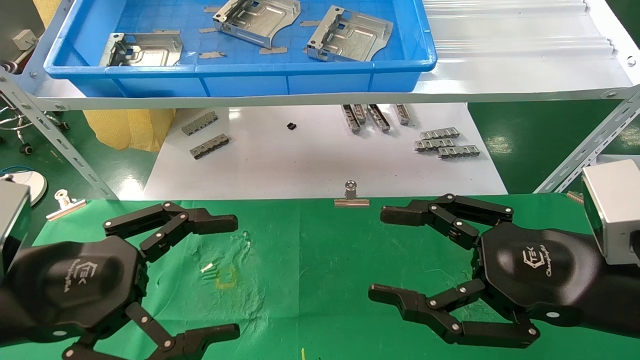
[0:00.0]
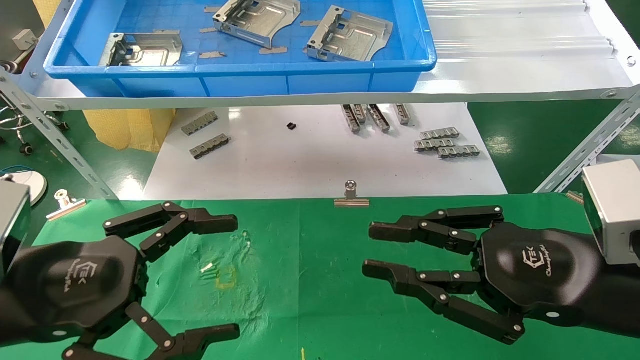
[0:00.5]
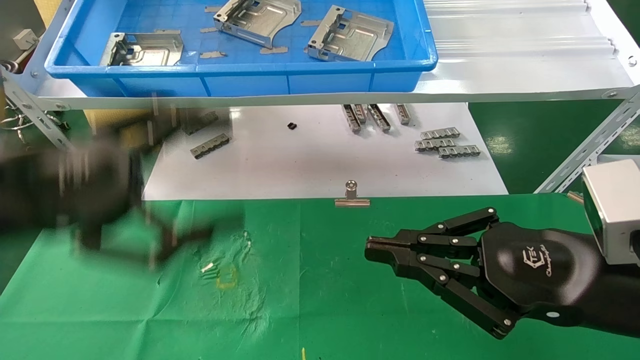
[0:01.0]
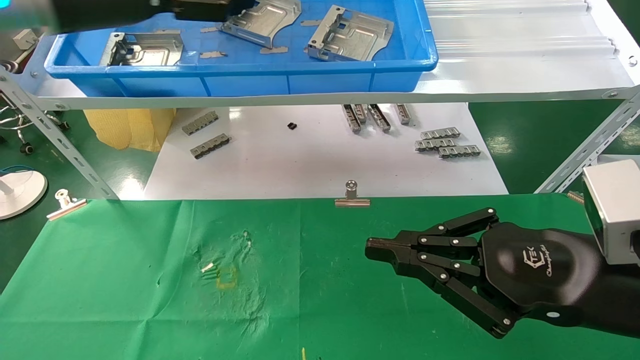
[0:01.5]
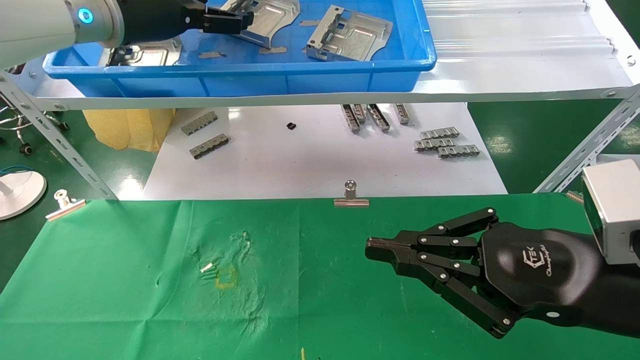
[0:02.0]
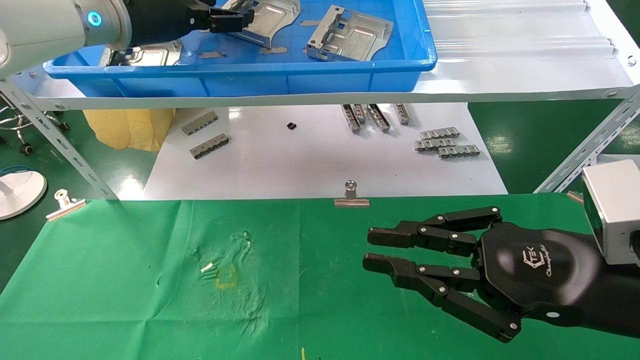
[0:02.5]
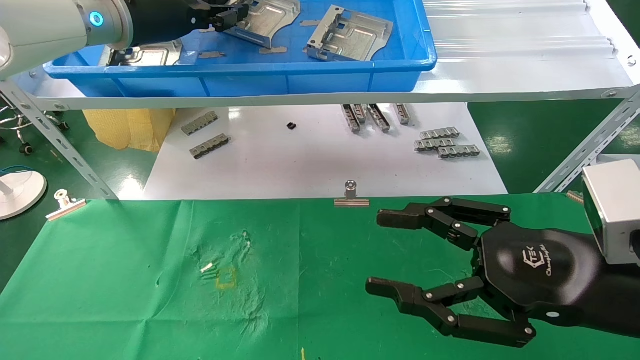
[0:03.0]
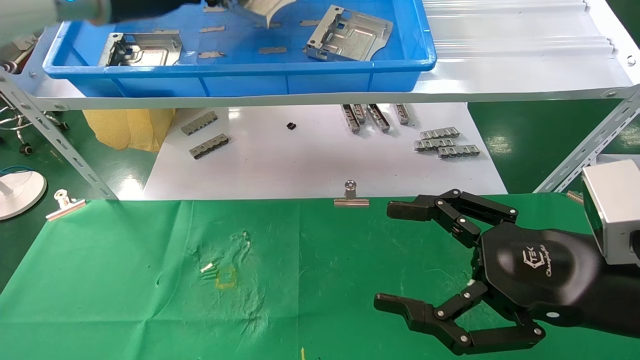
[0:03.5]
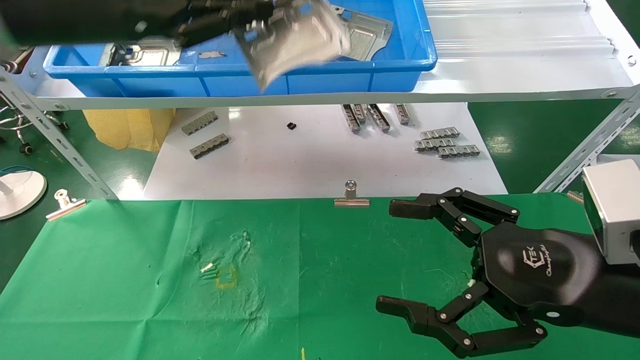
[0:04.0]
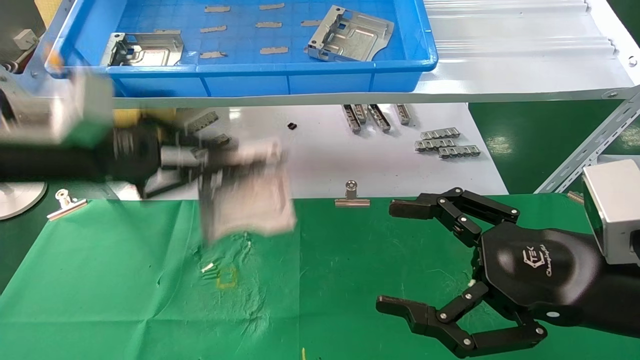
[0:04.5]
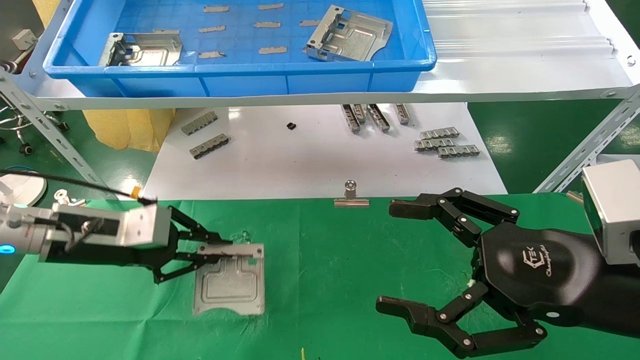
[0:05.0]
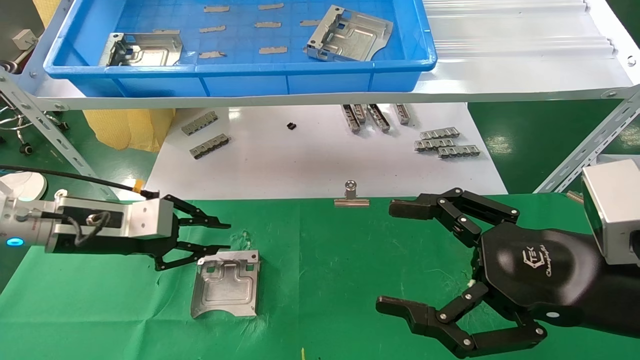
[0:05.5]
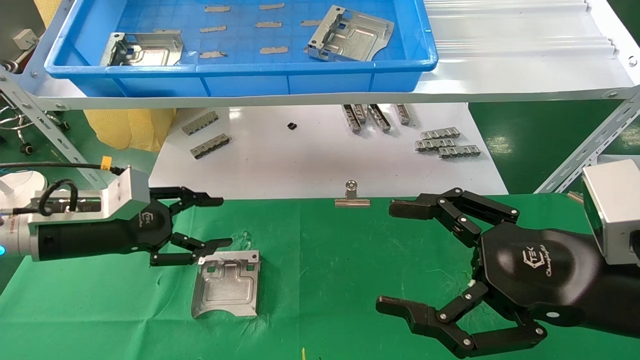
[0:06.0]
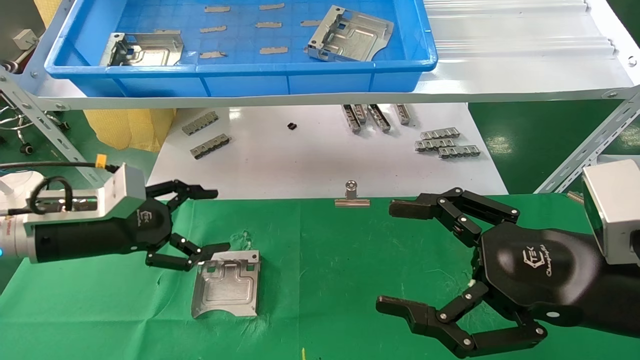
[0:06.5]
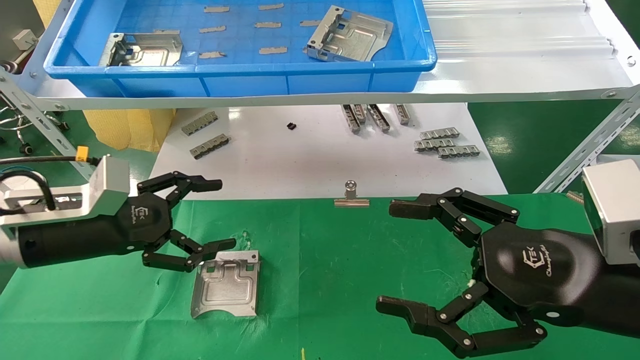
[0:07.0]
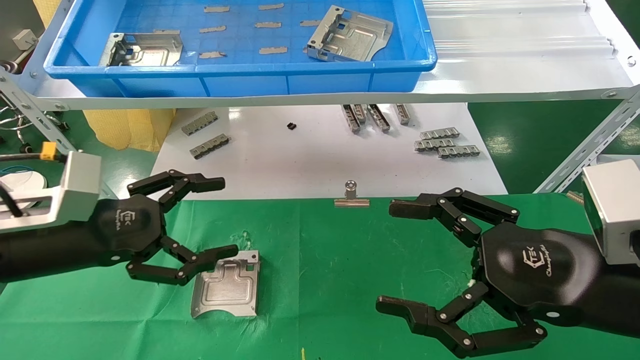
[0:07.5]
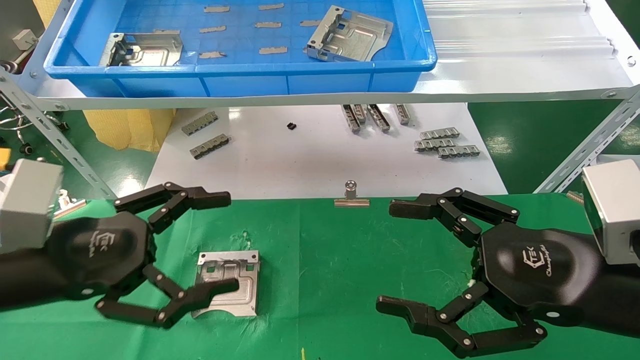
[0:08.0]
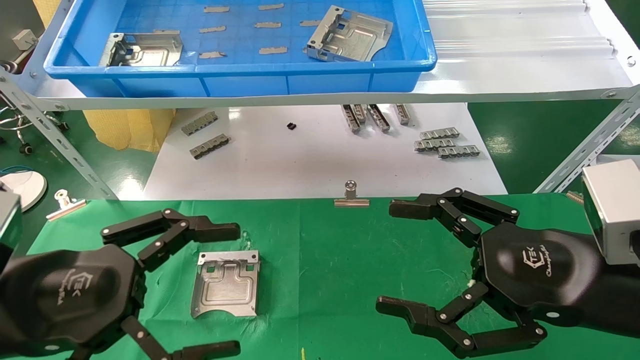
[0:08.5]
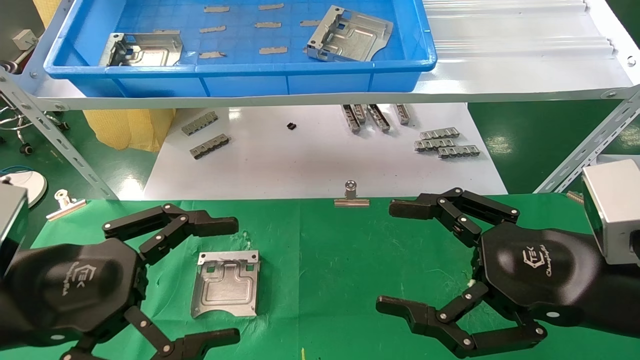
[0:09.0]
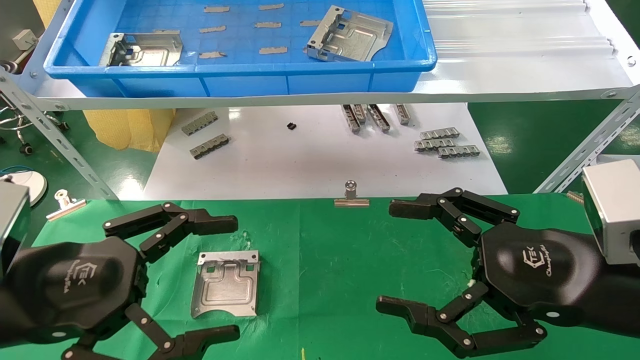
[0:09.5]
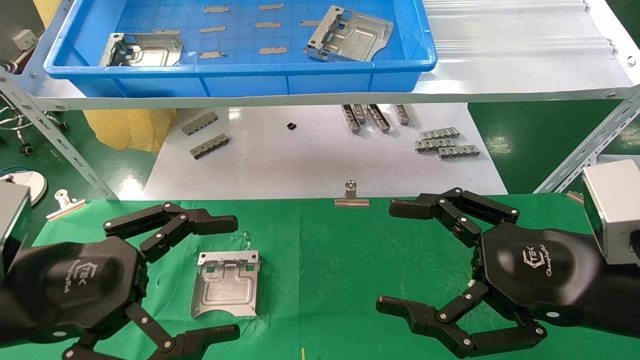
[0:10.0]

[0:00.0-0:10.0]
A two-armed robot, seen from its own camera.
Task of the whole recording: use the mechanical arm to pick up the parts and place them on the table.
Step, 0:01.5 to 0:03.5: Pick up the hard drive bracket from the feeding area.
Step, 0:04.0 to 0:06.0: Place the hard drive bracket into the box.
0:00.0 to 0:02.0: The left gripper moves forward and upward, approximately 35 cm. Meanwhile the right gripper closes up.
0:02.0 to 0:04.0: The right gripper opens up. Meanwhile the left gripper goes some 10 cm backward, and closes up.
0:04.0 to 0:06.0: The left gripper shifts some 25 cm downward, and opens its fingers.
0:06.0 to 0:08.0: The left gripper is displaced backward by roughly 15 cm, and opens.
0:08.0 to 0:10.0: The grippers move only a little.

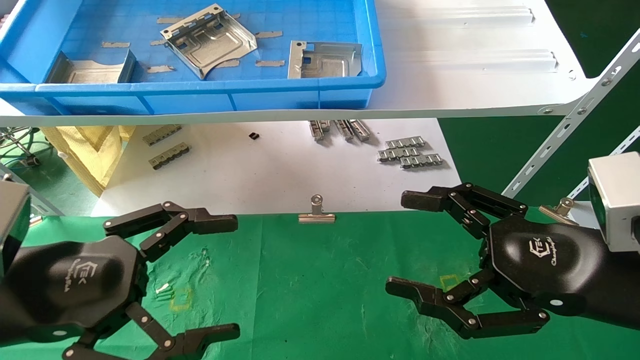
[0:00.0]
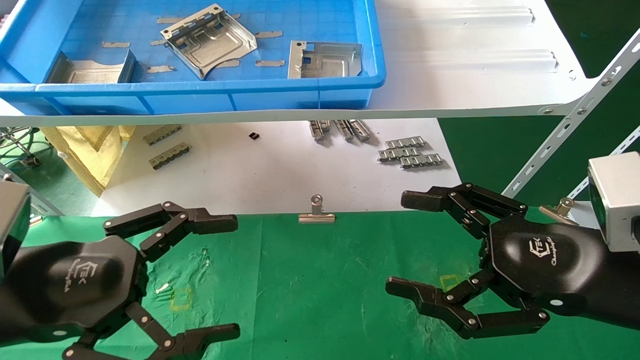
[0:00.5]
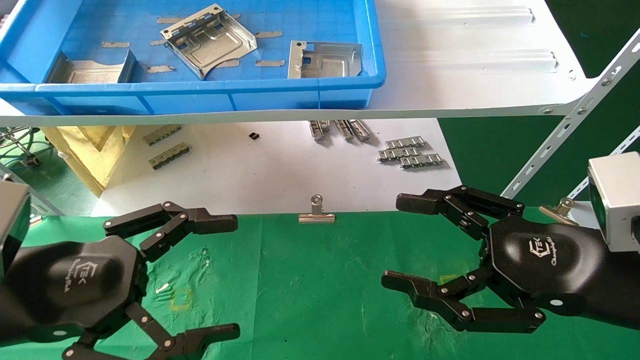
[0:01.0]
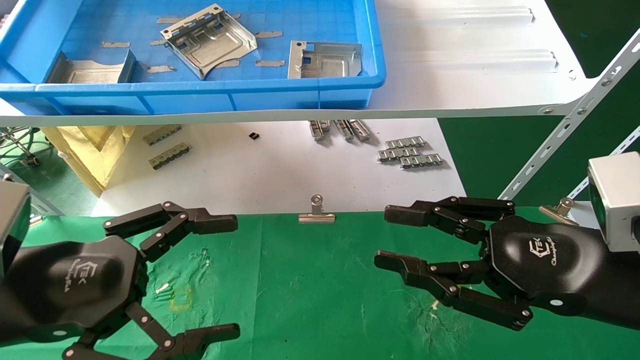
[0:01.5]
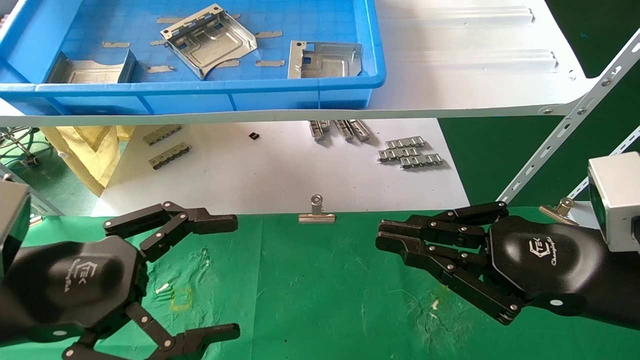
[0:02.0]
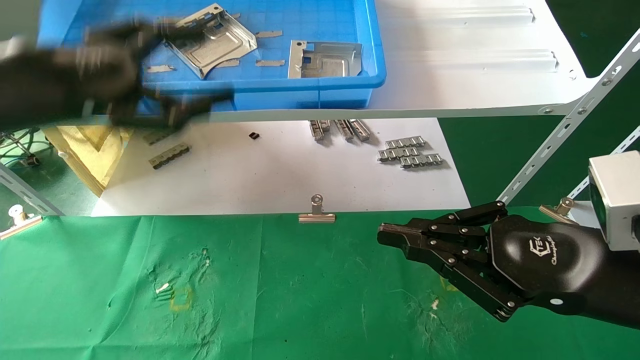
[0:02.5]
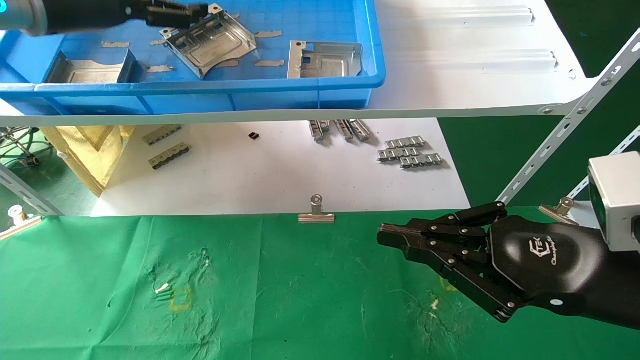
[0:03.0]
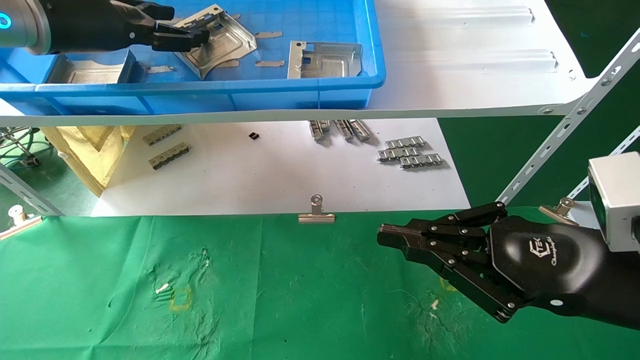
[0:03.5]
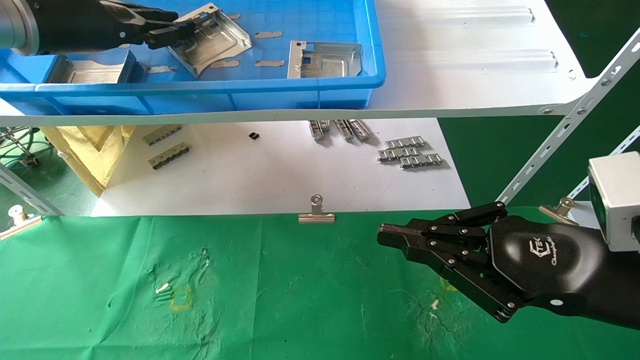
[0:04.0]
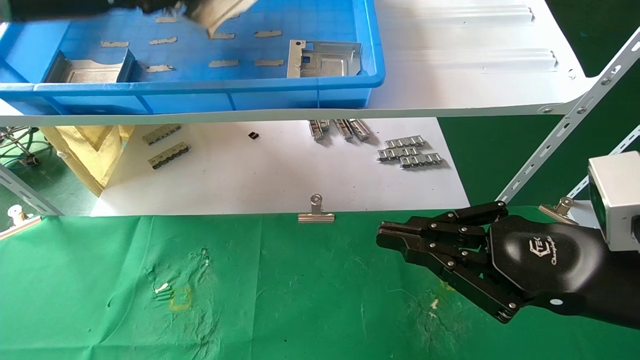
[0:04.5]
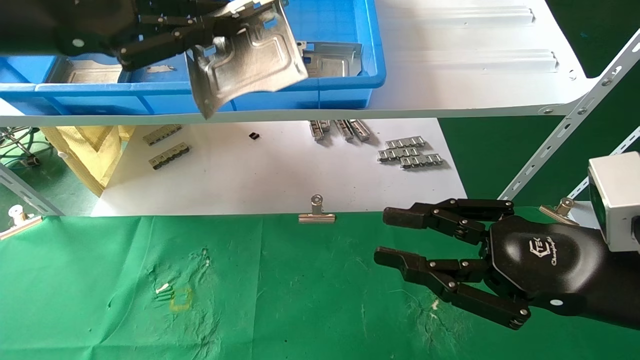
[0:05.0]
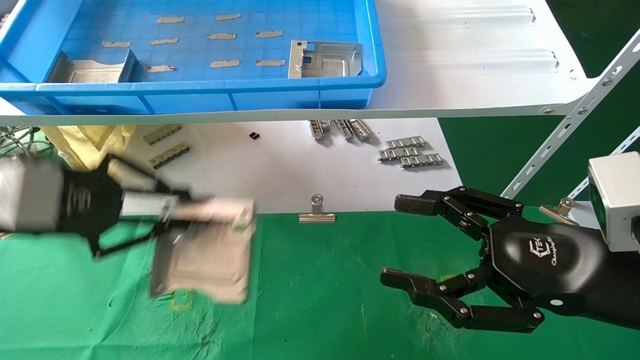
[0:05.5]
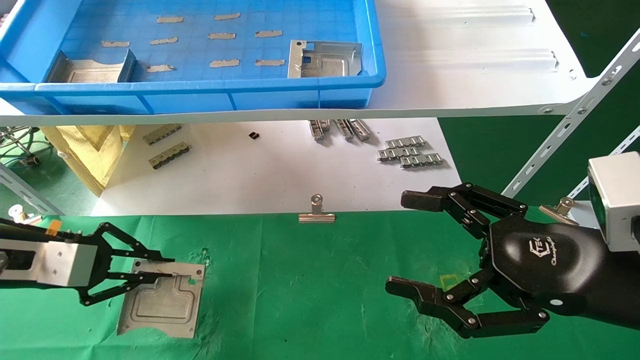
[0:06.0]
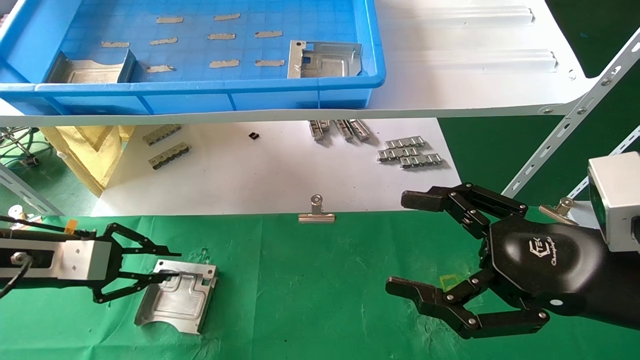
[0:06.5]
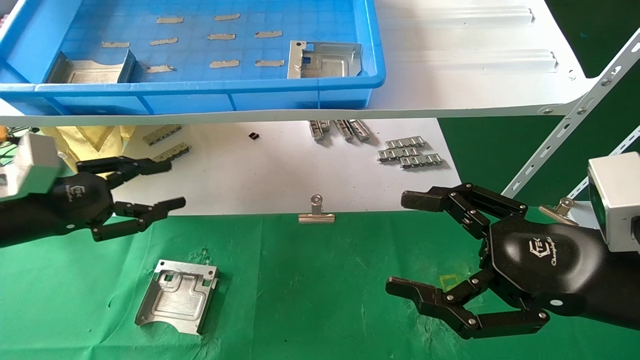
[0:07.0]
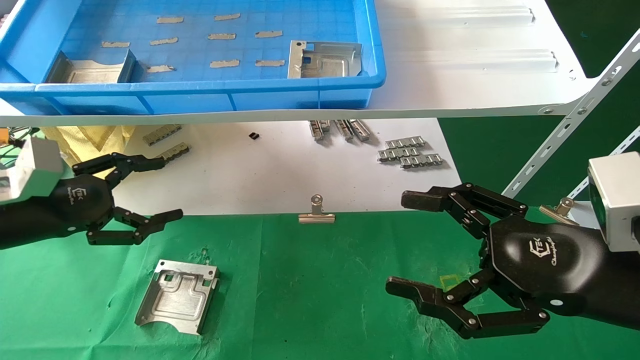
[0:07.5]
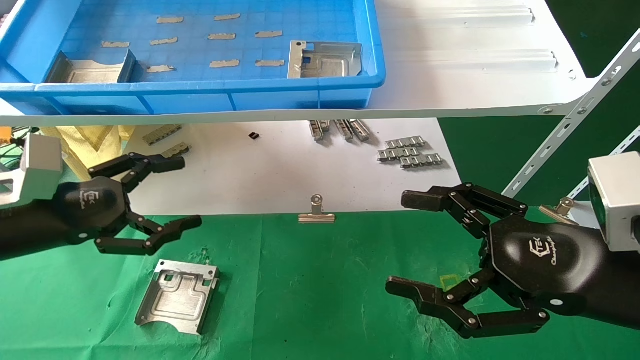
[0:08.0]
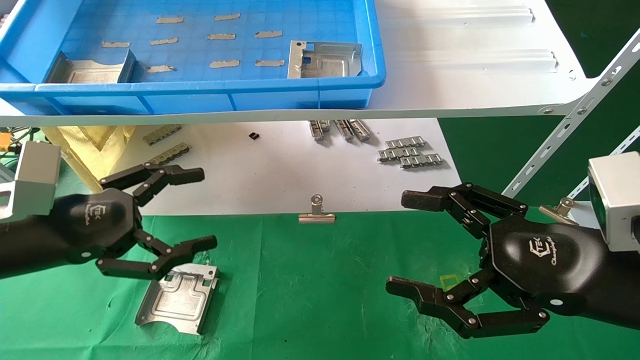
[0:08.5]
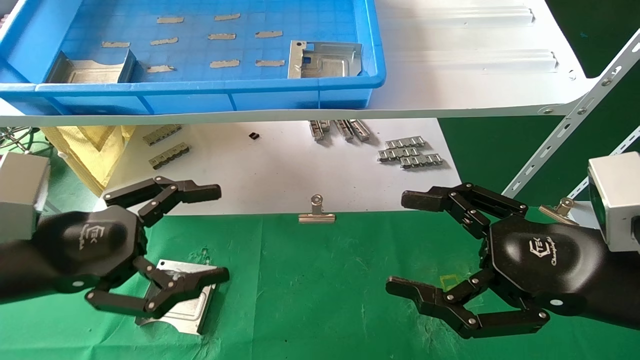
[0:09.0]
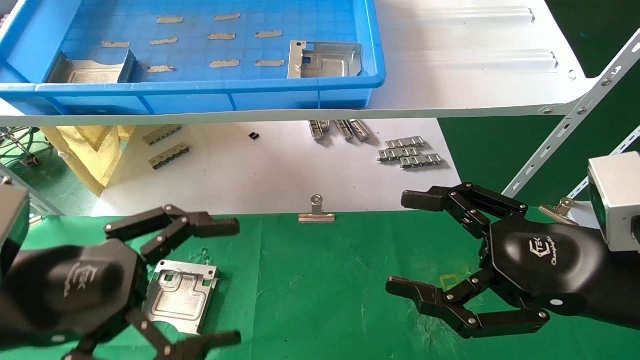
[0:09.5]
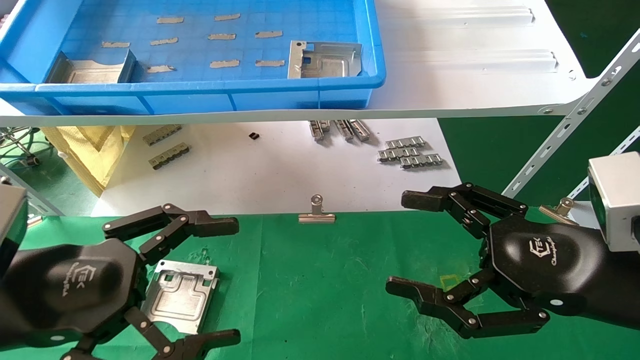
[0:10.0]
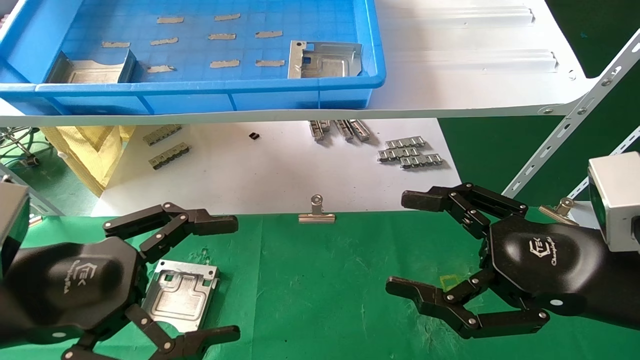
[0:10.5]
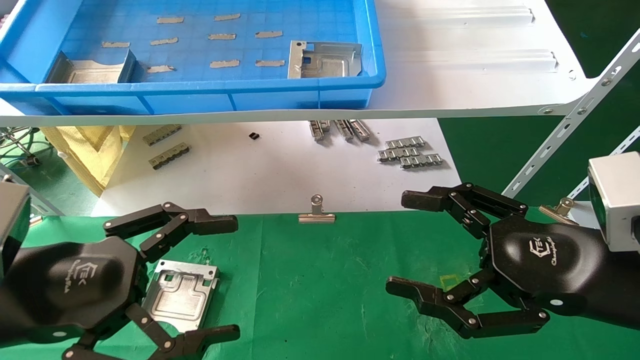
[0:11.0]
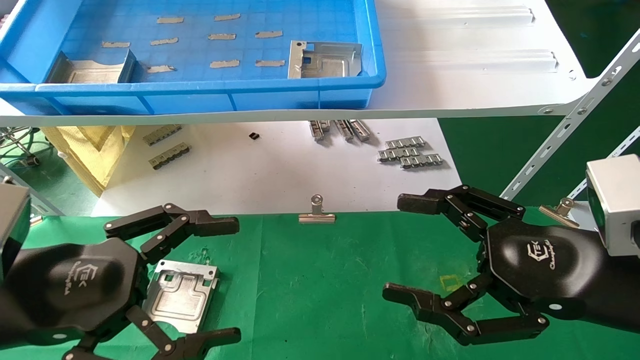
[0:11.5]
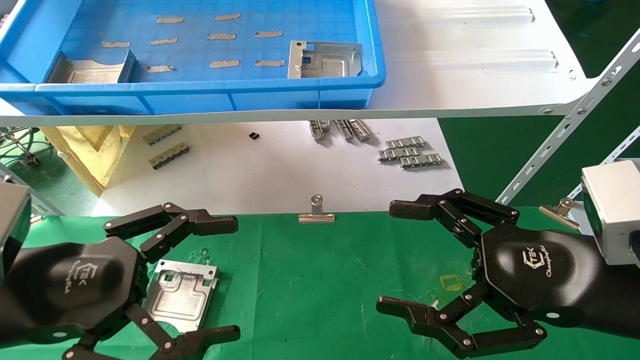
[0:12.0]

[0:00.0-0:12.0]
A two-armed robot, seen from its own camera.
Task of the whole recording: use the mechanical arm to pick up the parts and place them on the table.
Step, 0:02.0 to 0:05.0: Pick up the hard drive bracket from the feeding area.
Step, 0:05.5 to 0:08.5: Place the hard drive bracket into the box.
0:00.0 to 0:02.0: The right gripper closes its fingers.
0:02.0 to 0:04.0: The left gripper moves upward and forward, about 30 cm, and closes.
0:04.0 to 0:06.0: The left gripper shifts approximately 25 cm downward; the right gripper opens up.
0:06.0 to 0:08.0: The left gripper opens its fingers.
0:08.0 to 0:10.0: The left gripper travels backward and to the right by approximately 15 cm.
0:10.0 to 0:12.0: Both grippers stay put.
